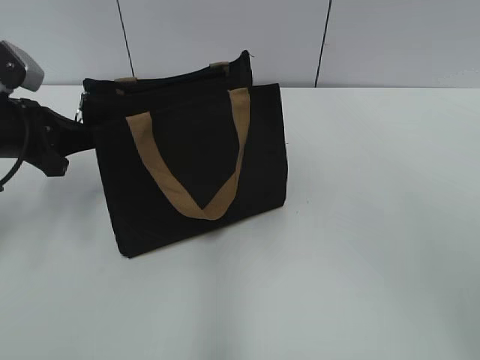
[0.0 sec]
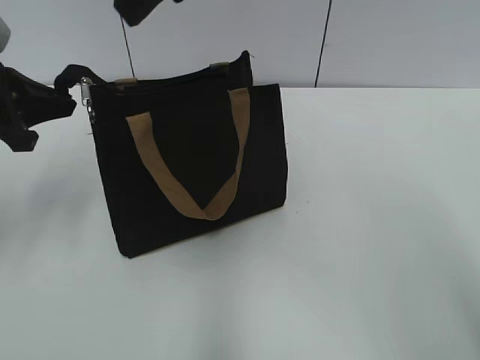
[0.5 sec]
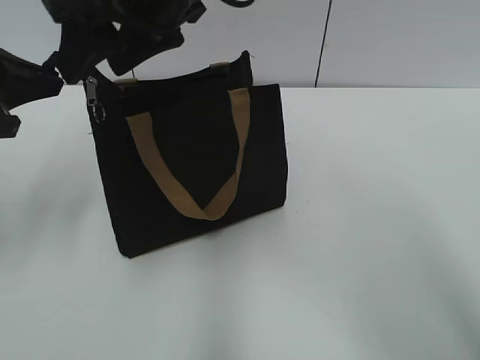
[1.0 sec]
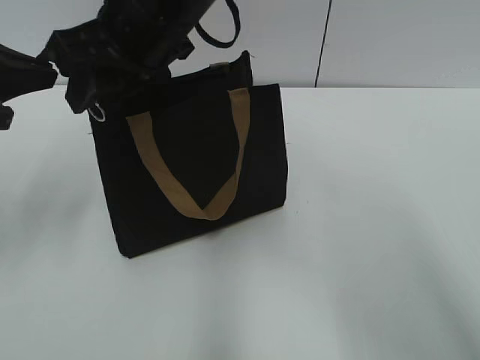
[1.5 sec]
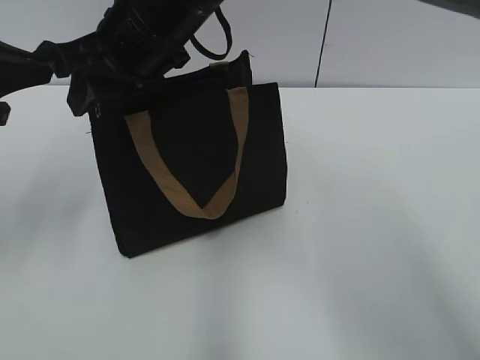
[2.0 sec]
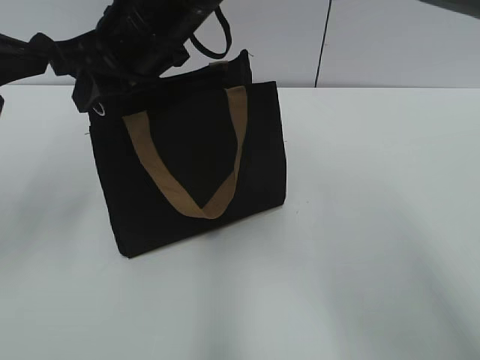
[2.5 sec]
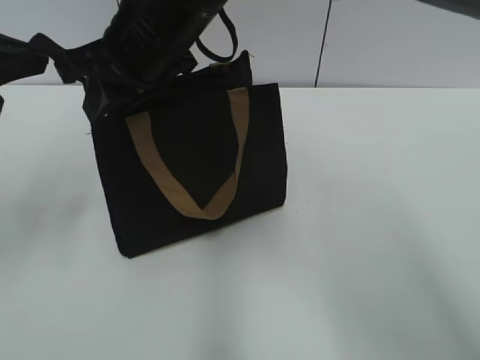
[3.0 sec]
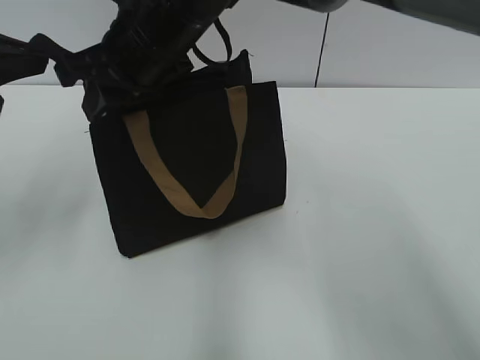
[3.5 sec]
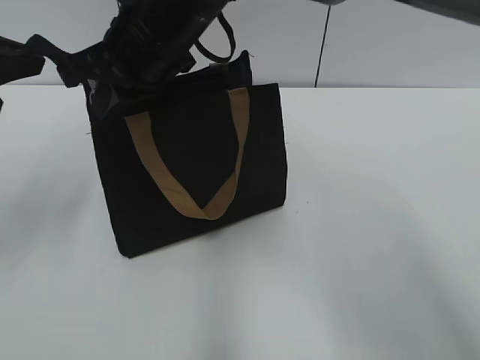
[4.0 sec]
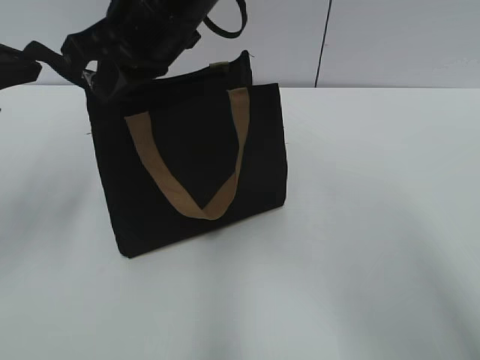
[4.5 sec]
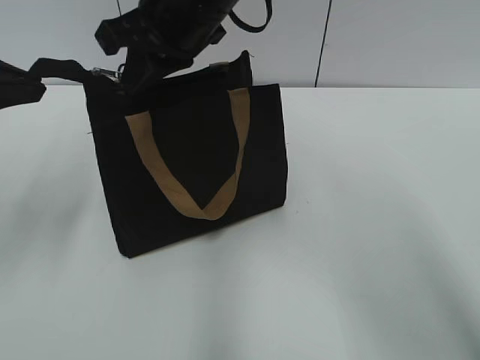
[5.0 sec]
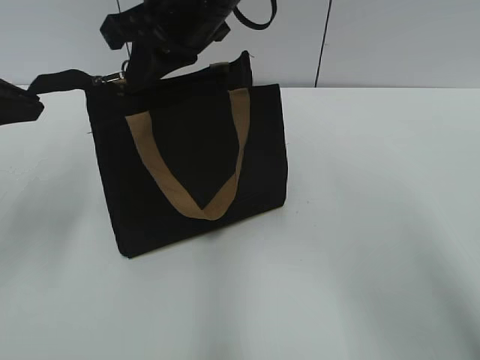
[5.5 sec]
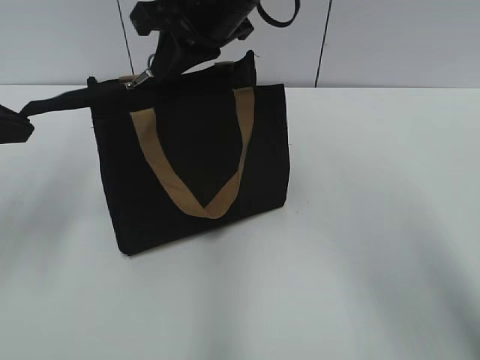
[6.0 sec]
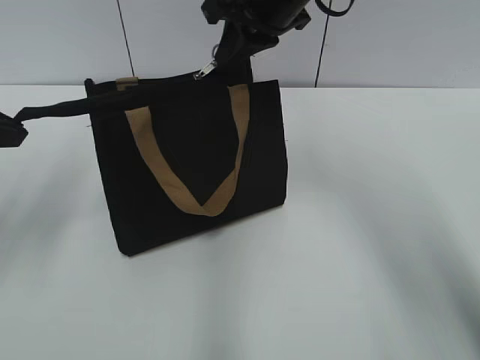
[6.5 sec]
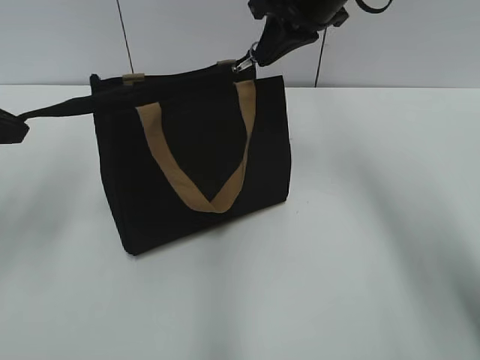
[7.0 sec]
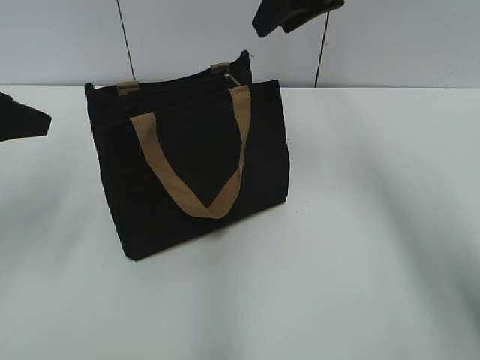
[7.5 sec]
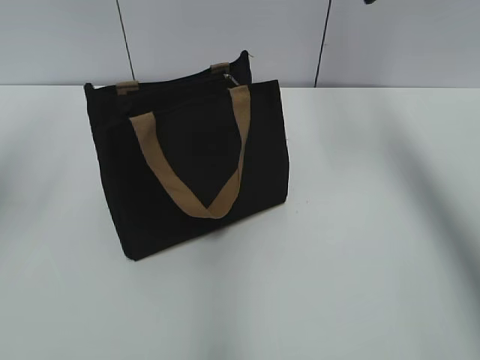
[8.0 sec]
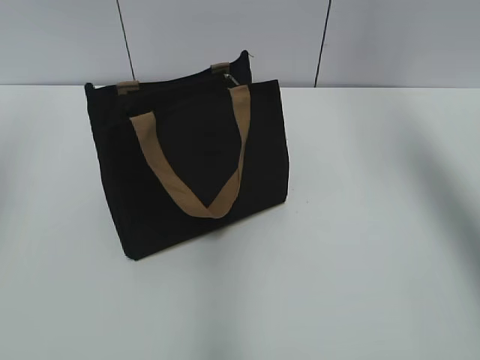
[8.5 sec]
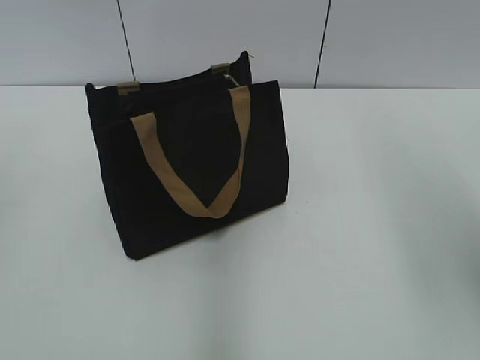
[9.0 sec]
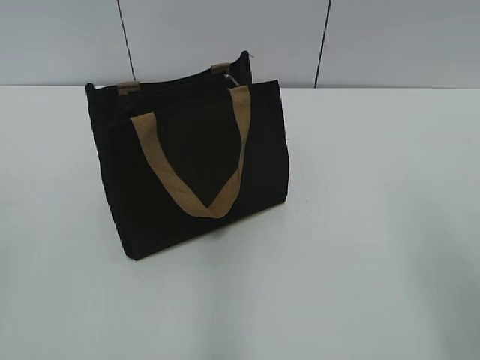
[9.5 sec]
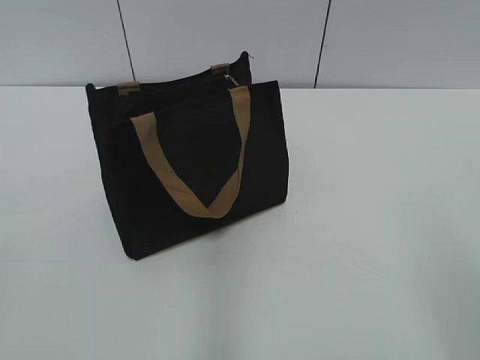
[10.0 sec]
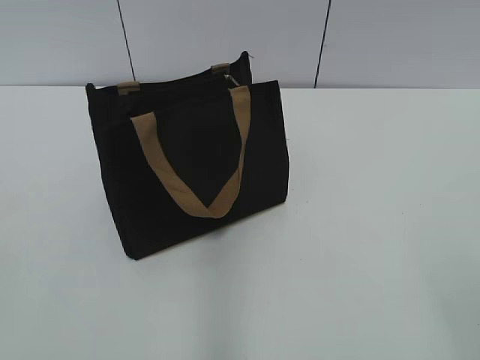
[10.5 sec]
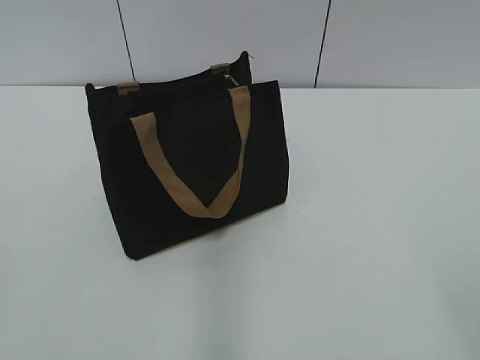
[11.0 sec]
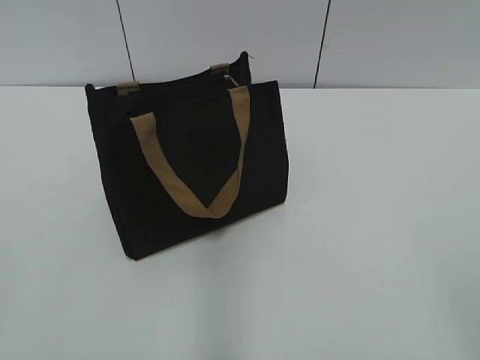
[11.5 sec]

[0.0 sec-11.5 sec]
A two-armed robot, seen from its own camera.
Step, 0.0 sec to 7.0 sec: Zip up the bag with your right hand.
0.0 sec to 2.0 sec: The right gripper is displaced to the left and downward by approximately 25 cm. Meanwhile the left gripper is displaced upward by roughly 10 cm.
2.0 sec to 4.0 sec: The right gripper closes.
4.0 sec to 6.0 sec: The right gripper moves to the right, approximately 5 cm.
6.0 sec to 7.5 sec: The right gripper moves to the right, roughly 10 cm, and opens its fingers. The left gripper opens its fingers.
7.5 sec to 9.5 sec: The right gripper moves backward and to the right, roughly 35 cm. Meanwhile the left gripper is displaced backward by some 20 cm.
